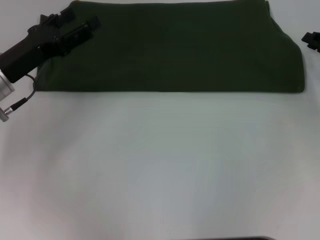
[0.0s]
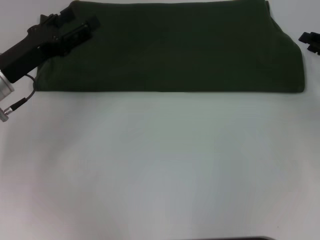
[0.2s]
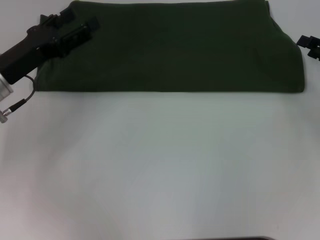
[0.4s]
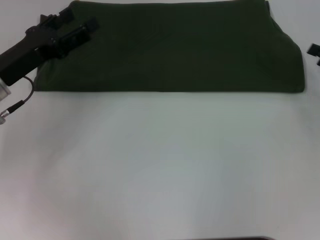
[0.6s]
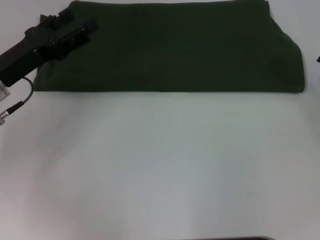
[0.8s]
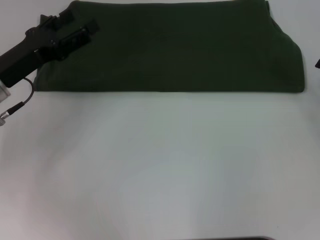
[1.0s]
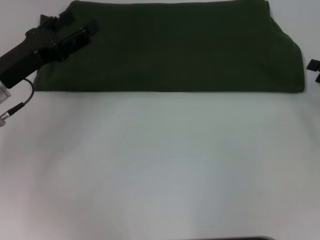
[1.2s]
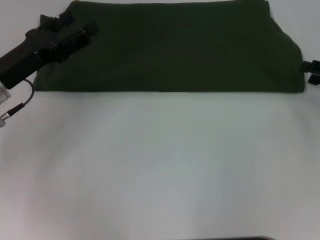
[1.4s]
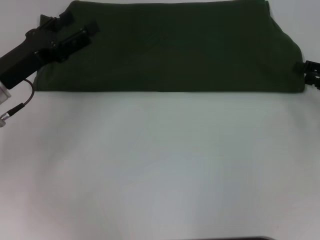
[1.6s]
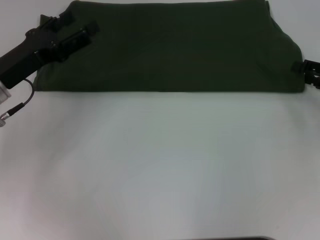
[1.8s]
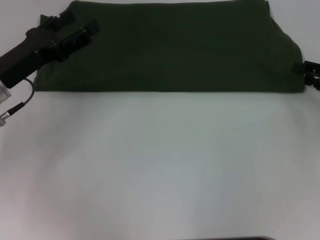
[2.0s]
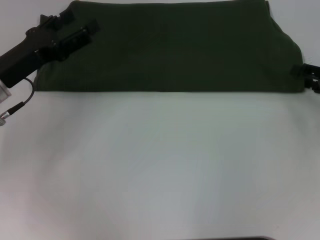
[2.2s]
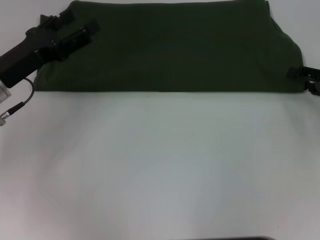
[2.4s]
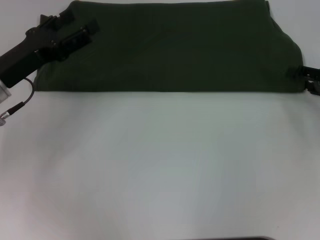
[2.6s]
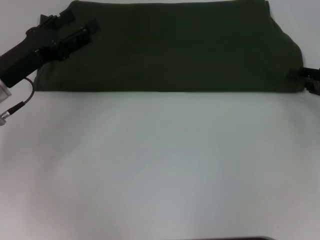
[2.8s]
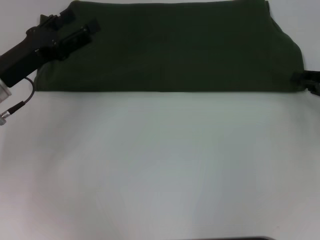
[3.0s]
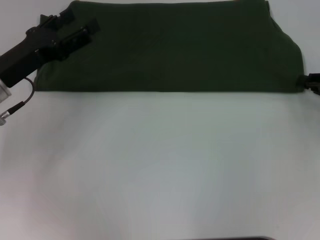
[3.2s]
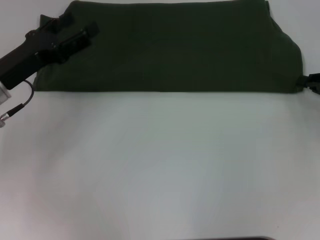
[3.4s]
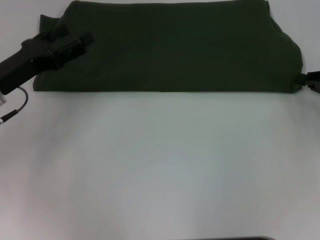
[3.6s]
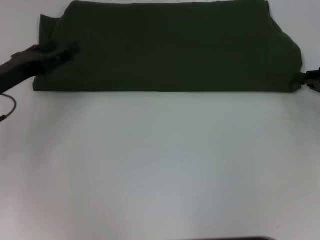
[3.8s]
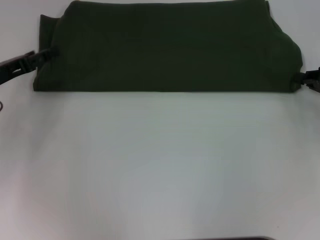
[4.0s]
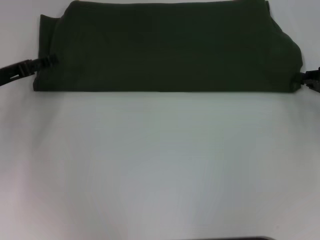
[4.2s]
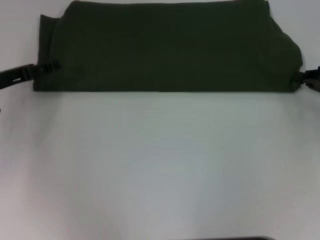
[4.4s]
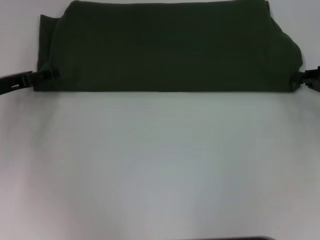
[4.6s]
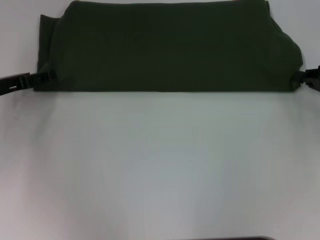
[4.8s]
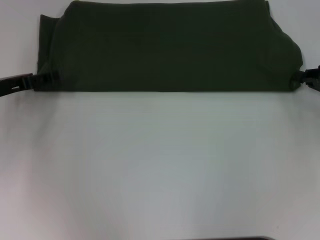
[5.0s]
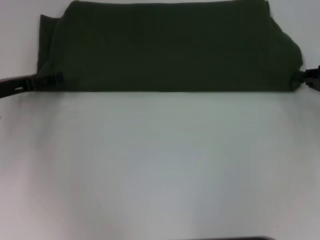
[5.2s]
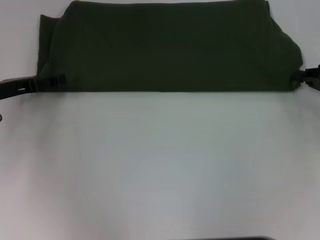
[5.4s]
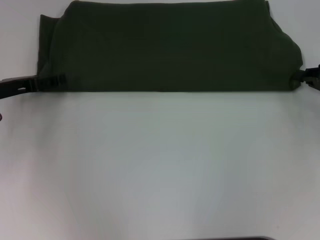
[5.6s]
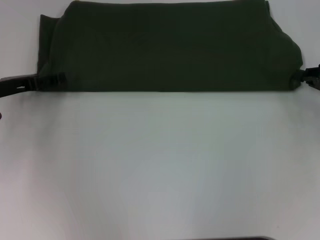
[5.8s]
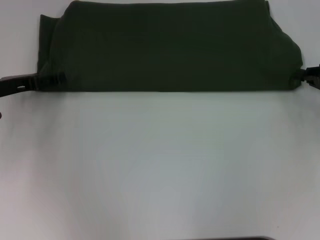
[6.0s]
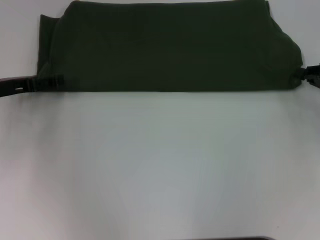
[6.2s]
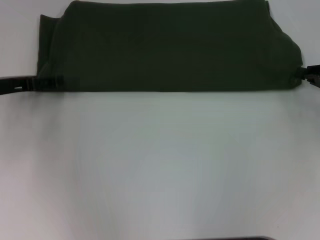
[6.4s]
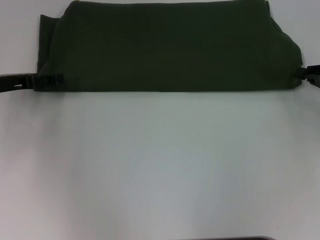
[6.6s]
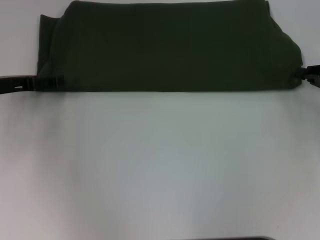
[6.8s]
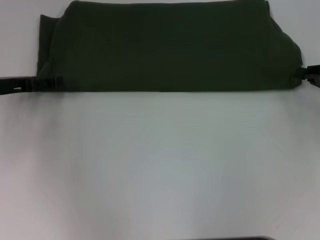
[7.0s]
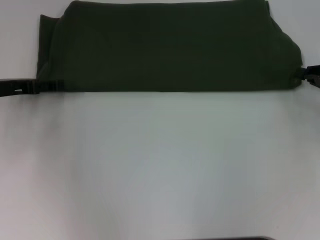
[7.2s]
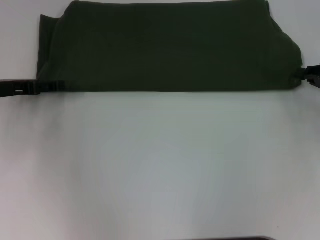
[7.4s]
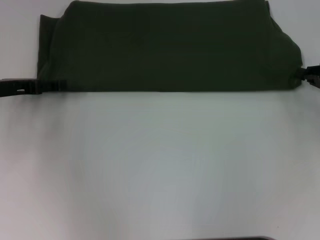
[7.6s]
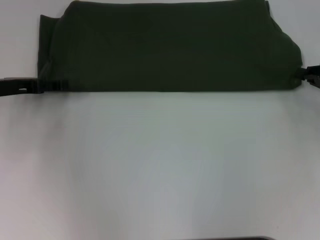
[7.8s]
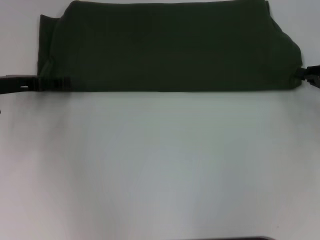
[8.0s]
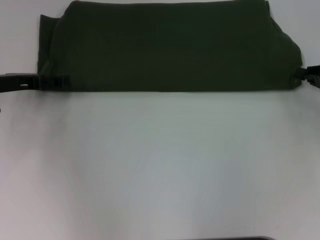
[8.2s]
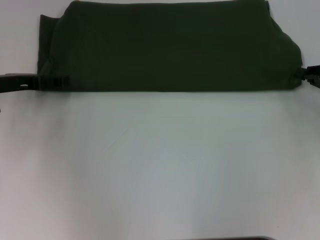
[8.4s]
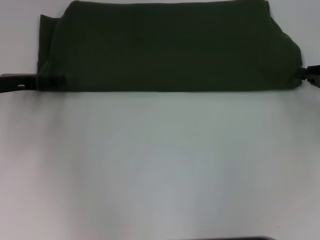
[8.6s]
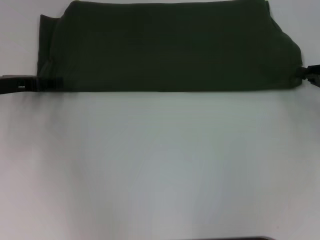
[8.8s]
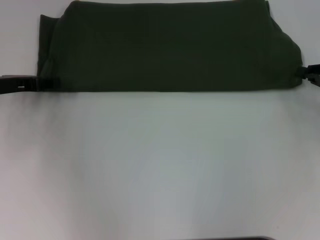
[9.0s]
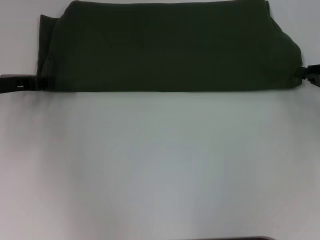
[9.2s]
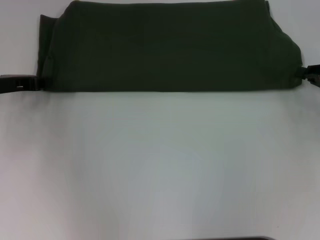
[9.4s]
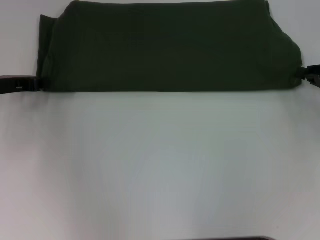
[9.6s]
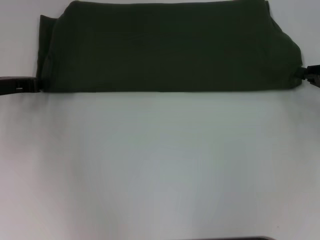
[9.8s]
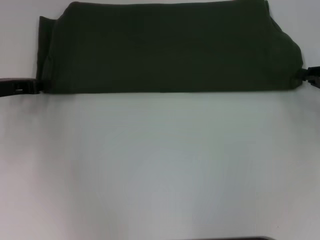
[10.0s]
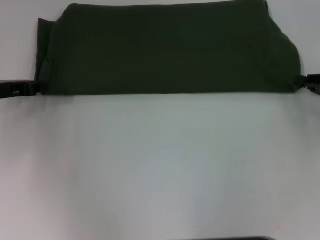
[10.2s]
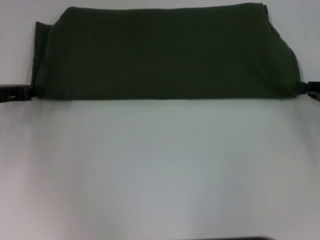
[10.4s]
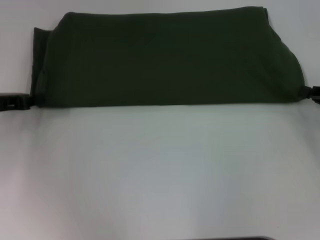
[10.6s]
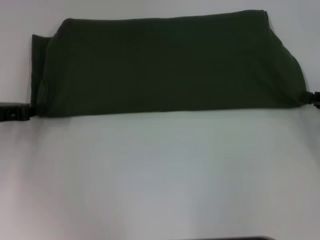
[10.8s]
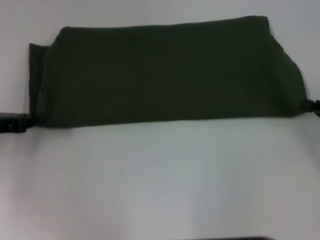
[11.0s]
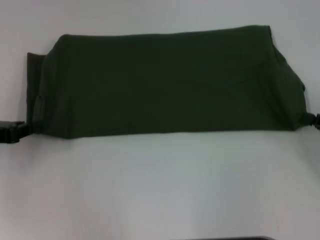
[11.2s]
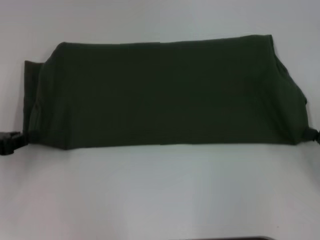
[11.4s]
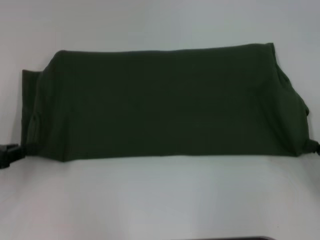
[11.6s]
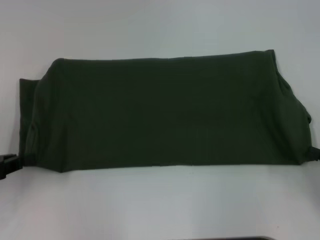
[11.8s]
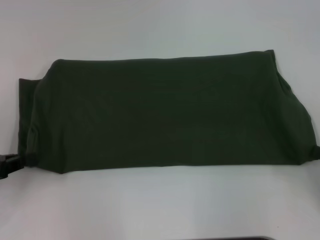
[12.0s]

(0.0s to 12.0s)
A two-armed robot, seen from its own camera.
0.0s - 1.6s: The right gripper opens up.
1.6s - 3.0s: Neither gripper changes place.
3.0s - 4.4s: The left gripper moves to the left, roughly 5 cm.
4.4s - 6.0s: The grippers make only small movements.
7.6s - 9.0s: Neither gripper changes place.
9.0s - 10.4s: The left gripper closes up.
10.4s - 12.0s: Both grippers travel together backward, about 10 cm.

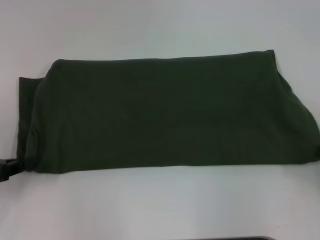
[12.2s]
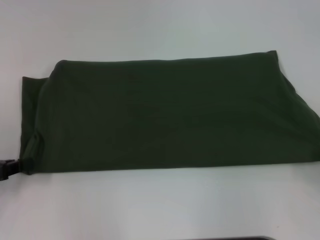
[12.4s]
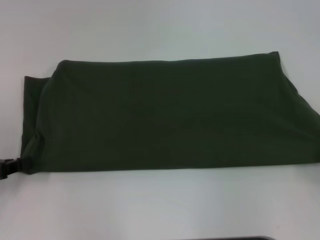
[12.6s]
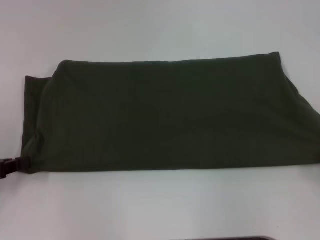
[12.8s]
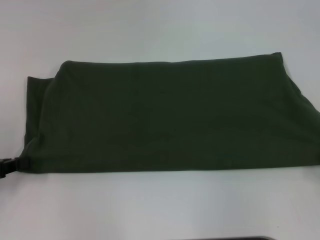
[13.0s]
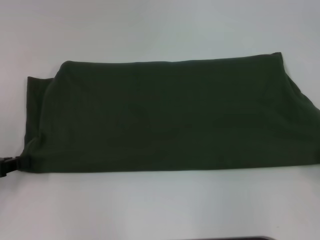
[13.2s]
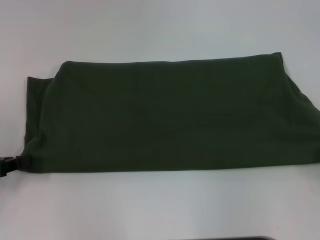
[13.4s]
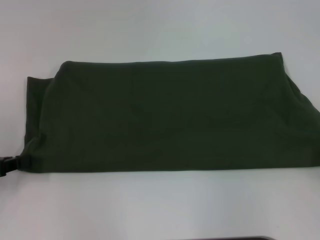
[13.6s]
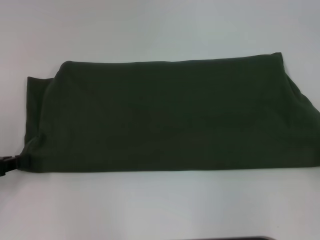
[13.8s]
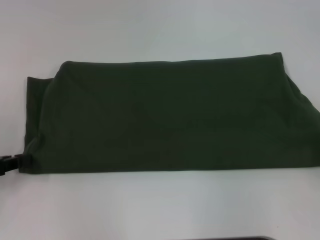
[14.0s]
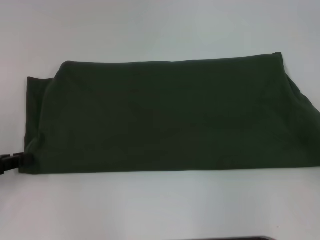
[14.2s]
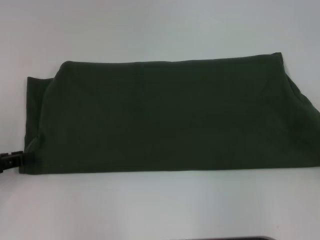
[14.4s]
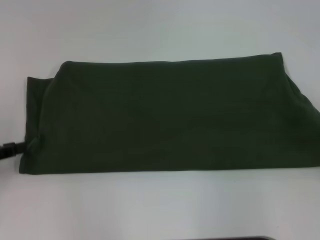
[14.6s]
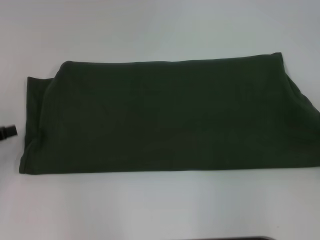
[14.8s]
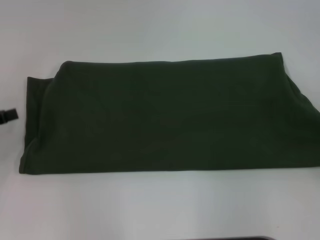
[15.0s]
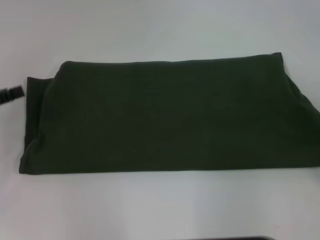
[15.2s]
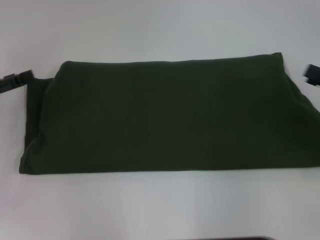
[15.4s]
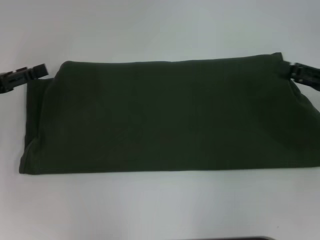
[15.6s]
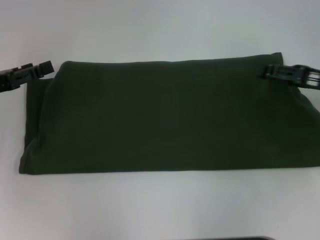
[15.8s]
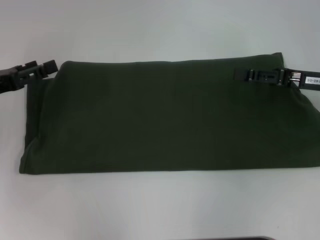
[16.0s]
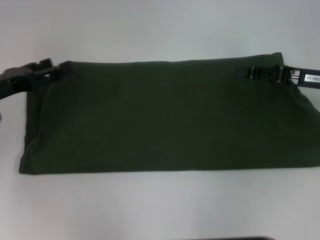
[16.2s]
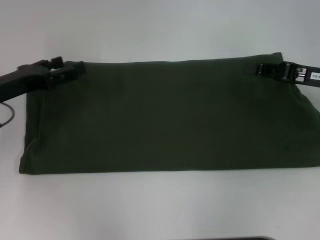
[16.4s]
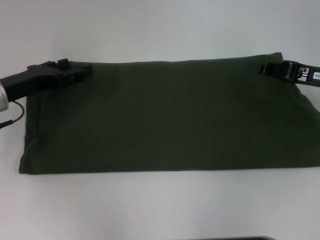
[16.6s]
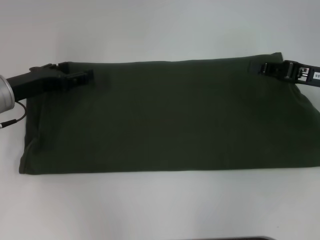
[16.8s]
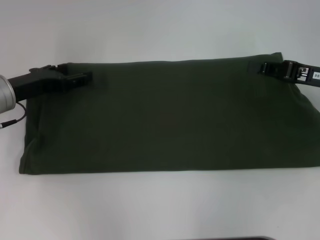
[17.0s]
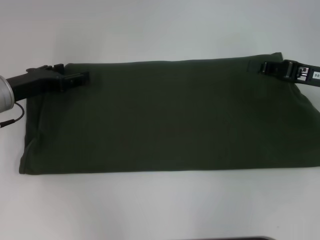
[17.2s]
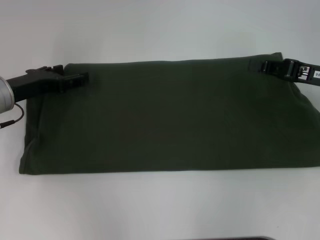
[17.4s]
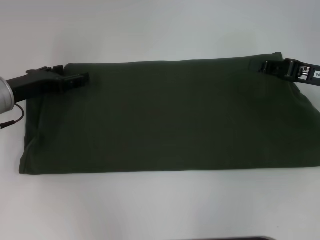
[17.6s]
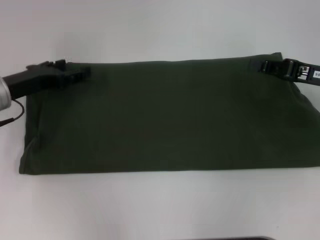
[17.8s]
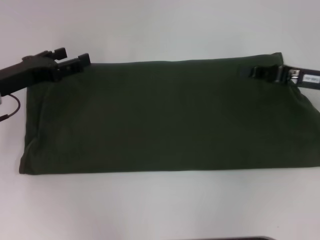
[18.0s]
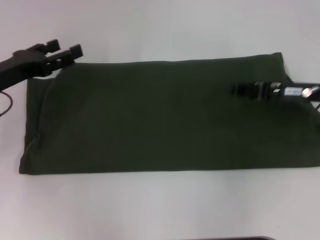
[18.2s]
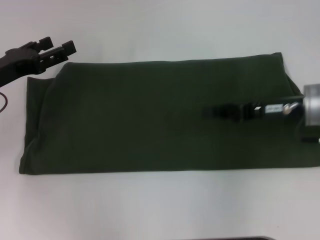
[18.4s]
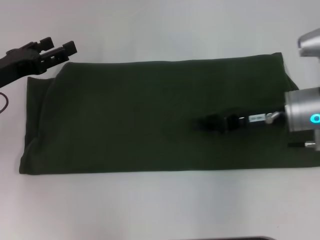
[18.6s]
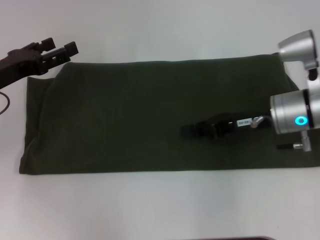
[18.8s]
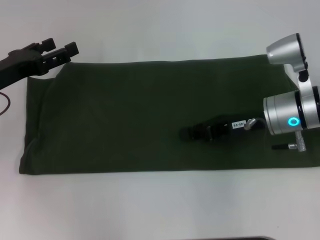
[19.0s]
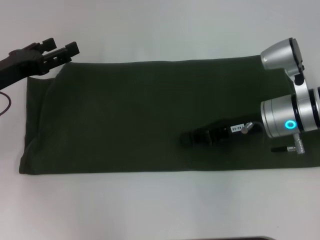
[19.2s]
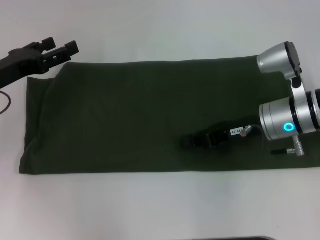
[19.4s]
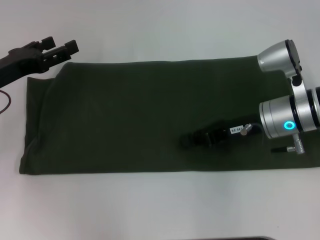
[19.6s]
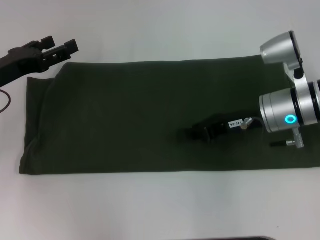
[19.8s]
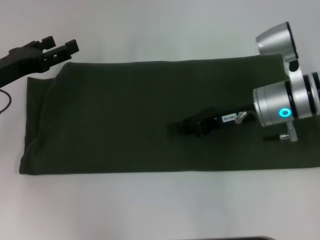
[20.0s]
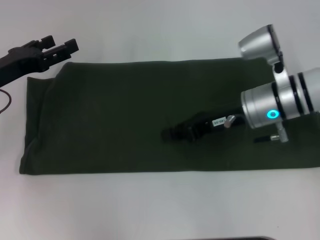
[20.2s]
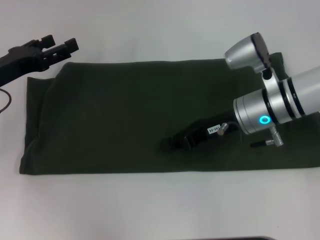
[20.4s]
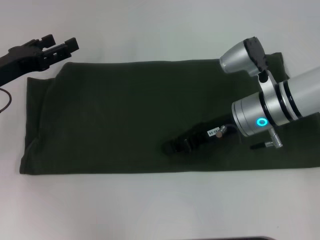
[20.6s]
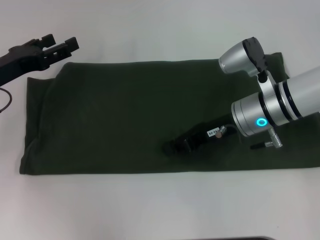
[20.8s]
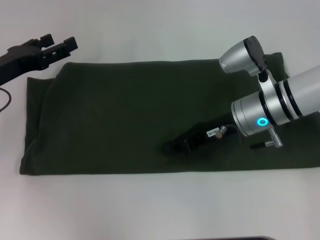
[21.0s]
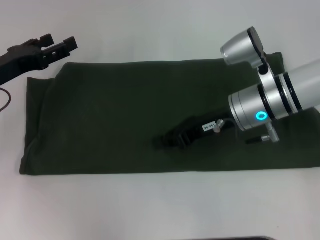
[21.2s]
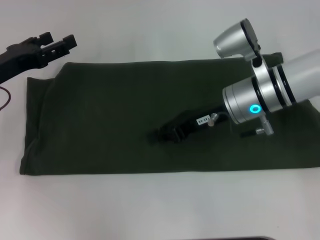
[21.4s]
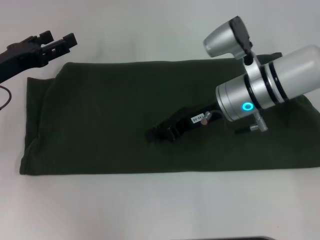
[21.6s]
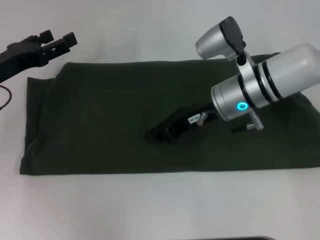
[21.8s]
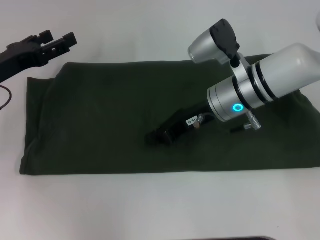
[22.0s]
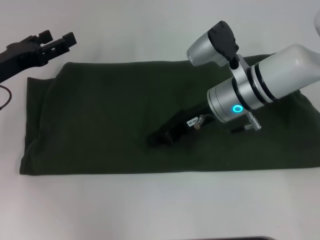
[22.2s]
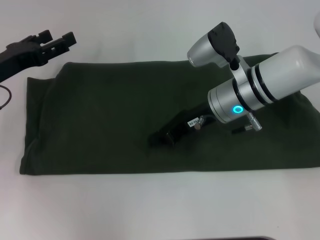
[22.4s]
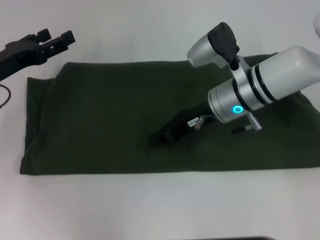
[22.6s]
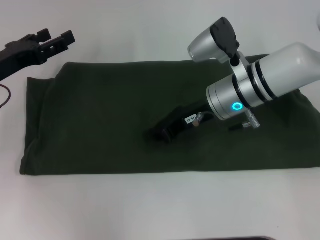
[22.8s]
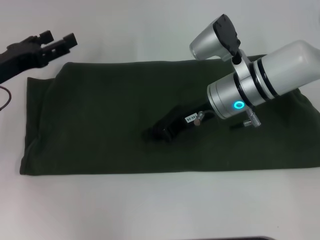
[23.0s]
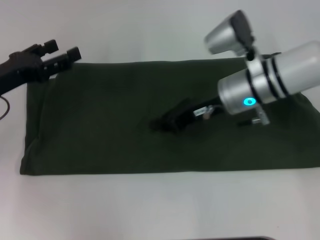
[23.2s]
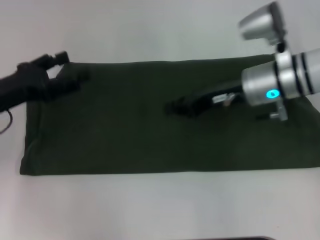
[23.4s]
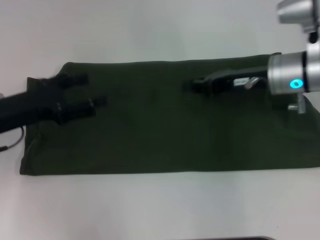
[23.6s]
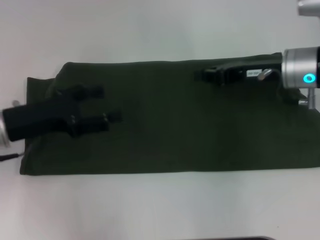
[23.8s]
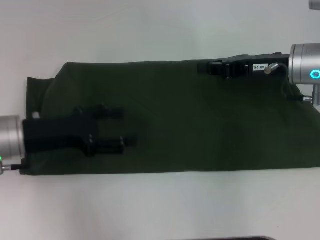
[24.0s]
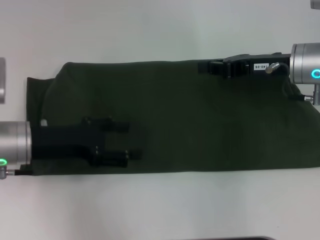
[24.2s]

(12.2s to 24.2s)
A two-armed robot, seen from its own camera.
12.2s - 13.8s: The grippers stay close to where they were, moving slightly.
13.8s - 15.2s: The left gripper ends up some 5 cm from where it was, and opens.
15.2s - 16.6s: The right gripper travels forward and to the left by about 15 cm, and closes its fingers; the left gripper moves to the right and forward, about 10 cm.
16.6s - 18.2s: The grippers move only a little.
18.2s - 19.8s: The right gripper is displaced to the left by approximately 10 cm.
19.8s - 21.2s: The grippers make only small movements.
21.2s - 22.6s: The grippers make only small movements.
22.6s - 24.2s: The left gripper goes about 10 cm to the right and backward; the right gripper moves to the right, roughly 10 cm.
